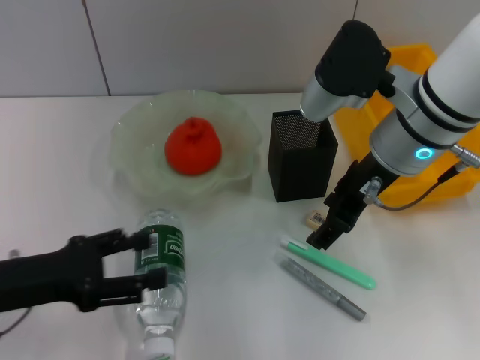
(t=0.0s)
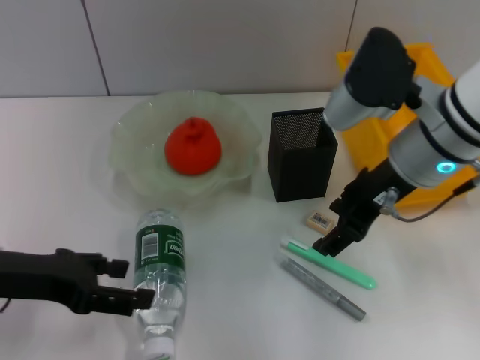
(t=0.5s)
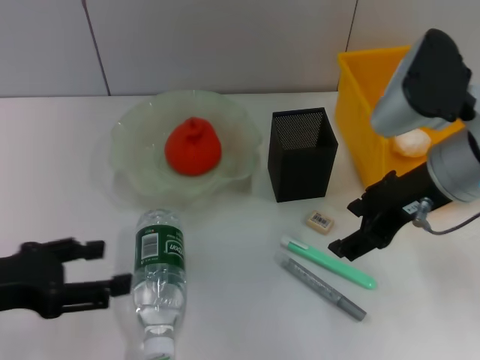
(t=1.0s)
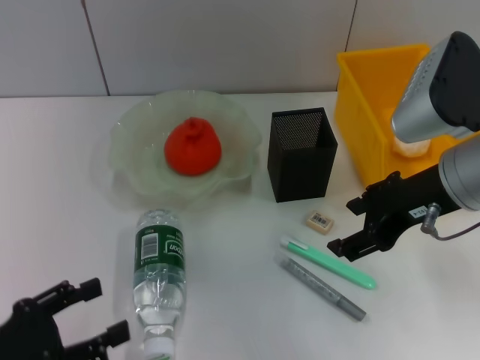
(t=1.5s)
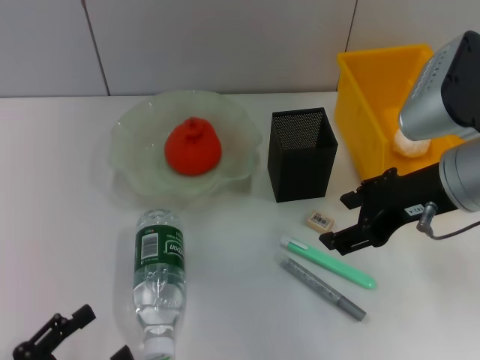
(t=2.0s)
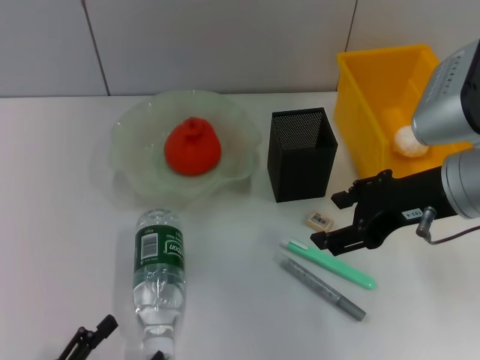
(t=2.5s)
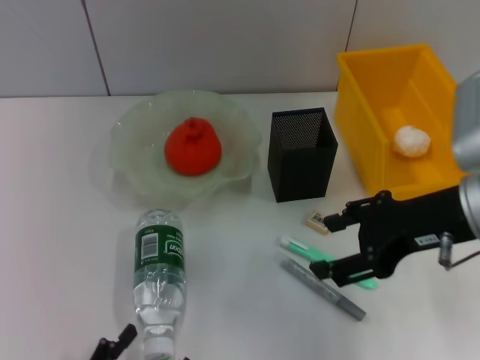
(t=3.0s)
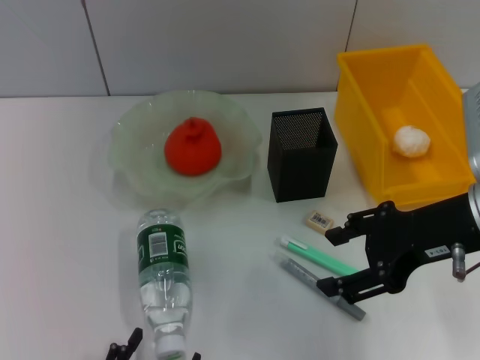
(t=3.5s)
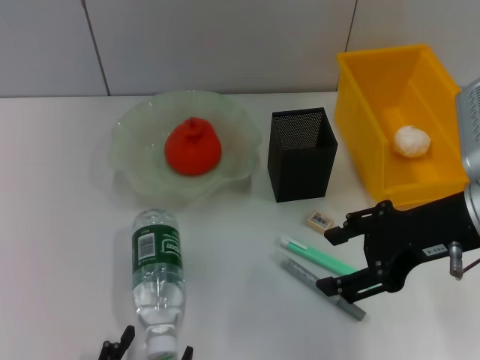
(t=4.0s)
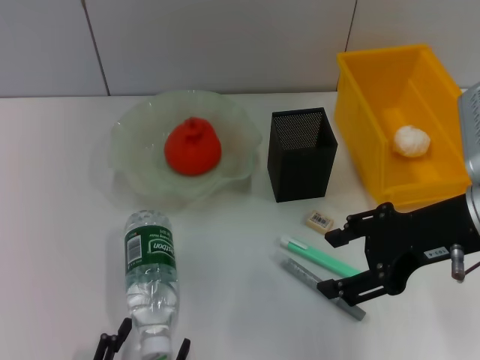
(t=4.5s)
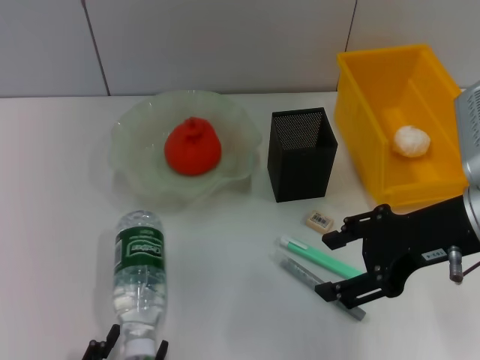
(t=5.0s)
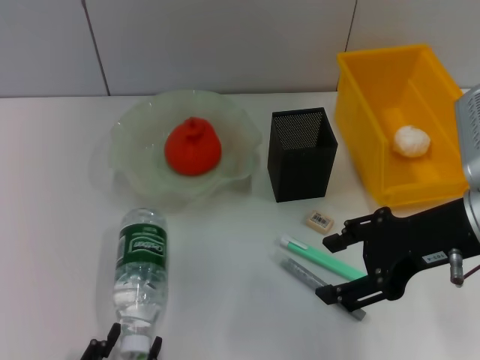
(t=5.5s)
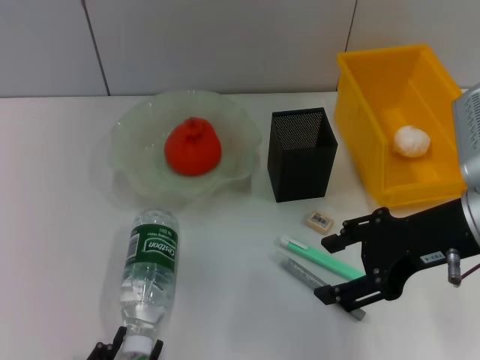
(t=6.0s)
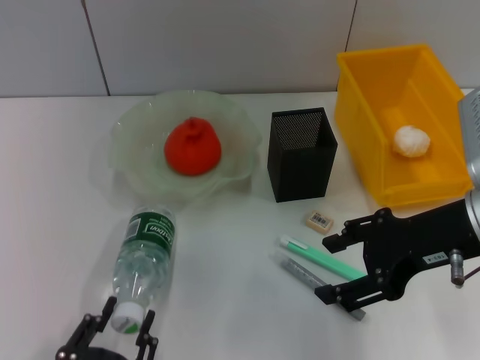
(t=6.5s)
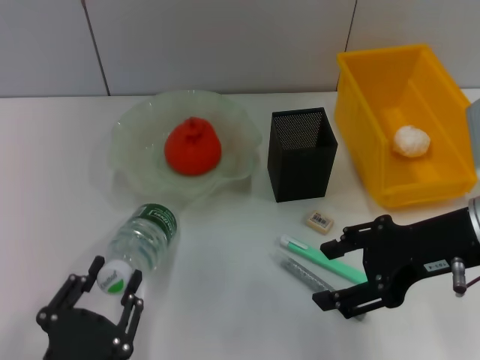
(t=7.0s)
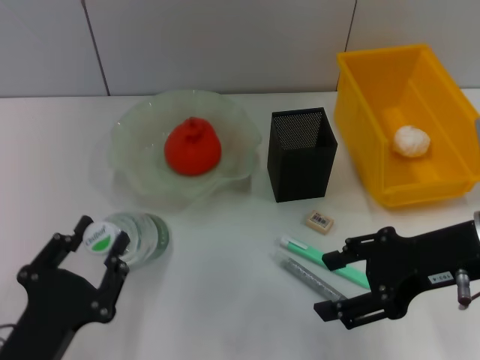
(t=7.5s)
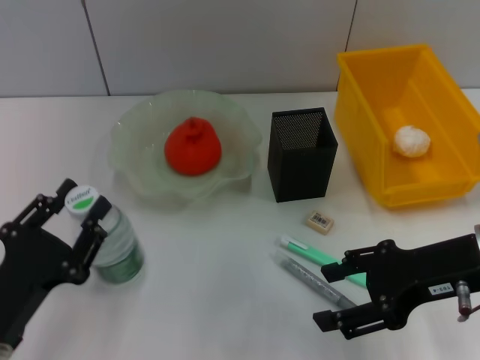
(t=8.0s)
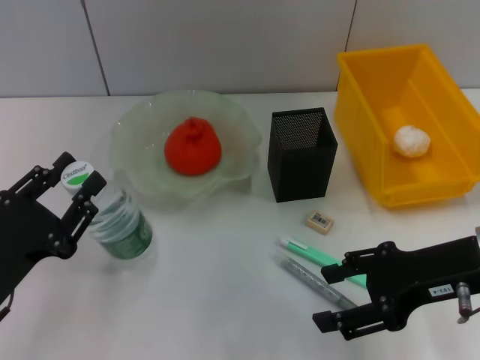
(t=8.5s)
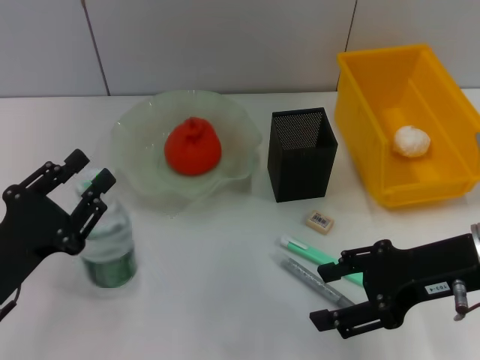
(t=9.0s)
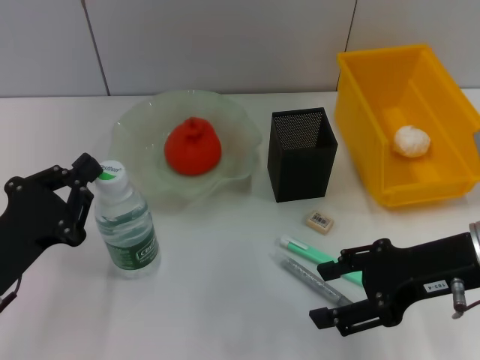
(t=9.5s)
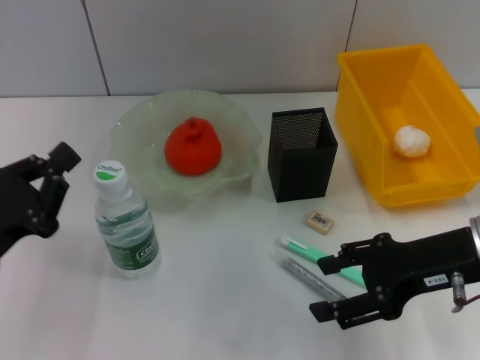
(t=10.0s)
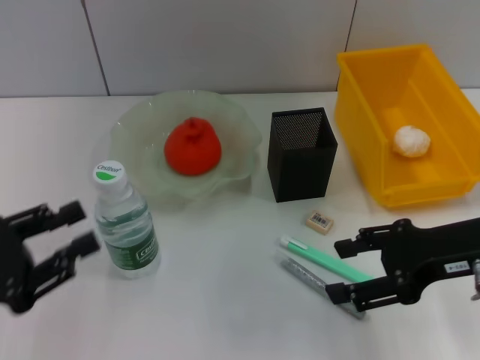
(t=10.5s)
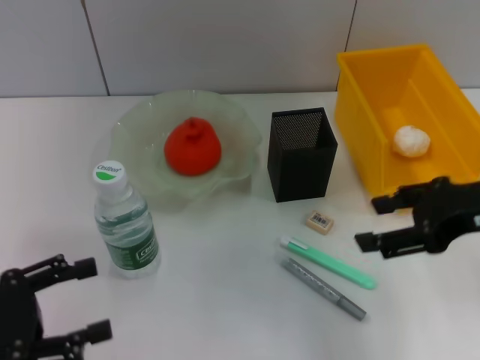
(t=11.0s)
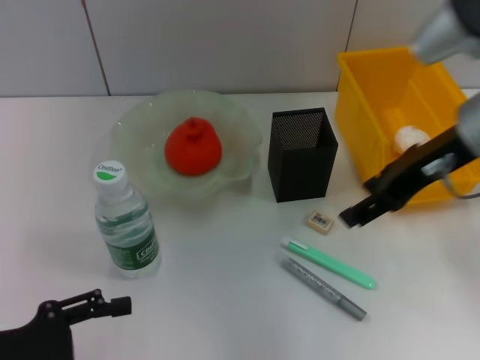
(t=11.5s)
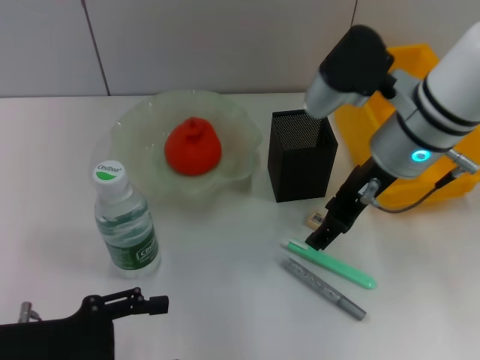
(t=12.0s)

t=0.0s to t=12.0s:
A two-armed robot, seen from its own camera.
Step, t=0.0s to t=6.0s: Grab the water bottle with the left hand.
Step, t=6.5s to t=9.5s: Place the water bottle on the table with the left hand.
t=0.0s to t=2.0s: The right gripper heads to the right and backward, covering about 10 cm. The left gripper travels backward and downward by some 15 cm.
t=2.0s to t=4.0s: The left gripper travels to the right by some 15 cm.
t=4.0s to t=6.0s: The left gripper closes its fingers.
t=6.0s to t=8.0s: The left gripper heads forward and to the left, covering about 15 cm.
t=8.0s to t=10.0s: The left gripper moves forward, roughly 5 cm, and closes.
t=10.0s to t=12.0s: The left gripper opens up; the right gripper shifts approximately 15 cm forward and to the left.

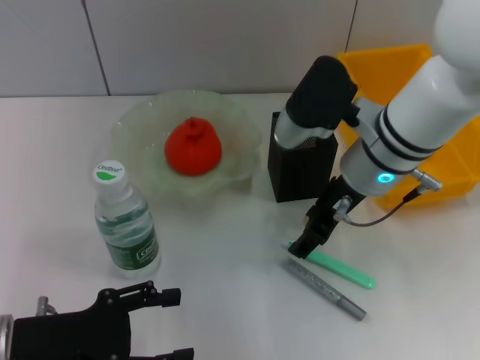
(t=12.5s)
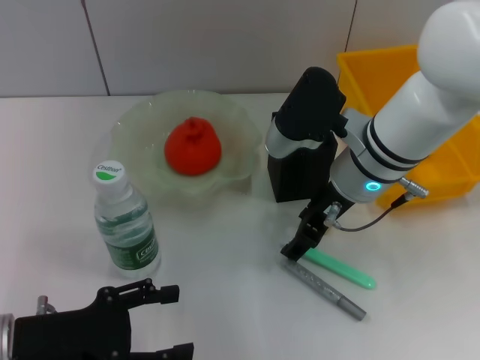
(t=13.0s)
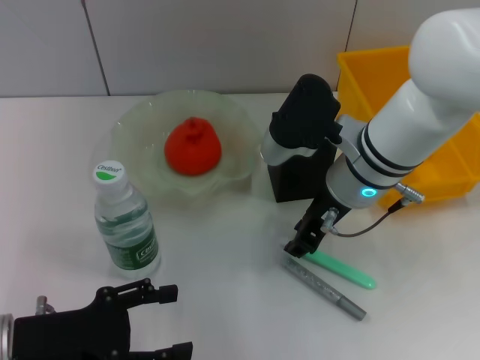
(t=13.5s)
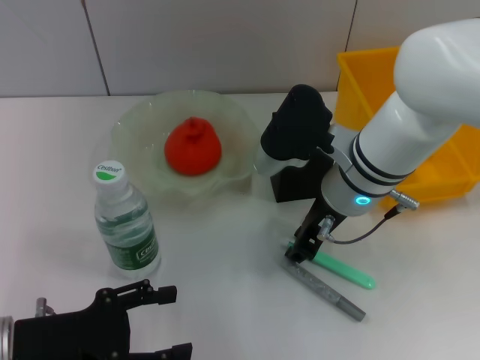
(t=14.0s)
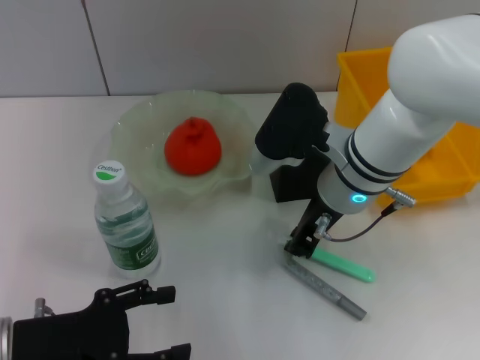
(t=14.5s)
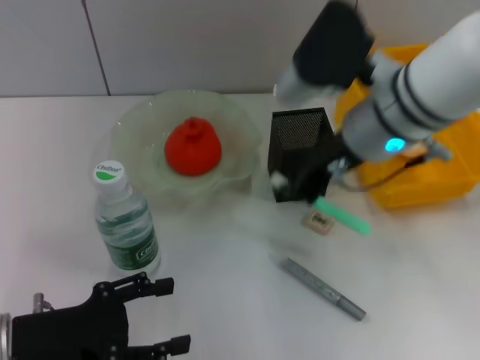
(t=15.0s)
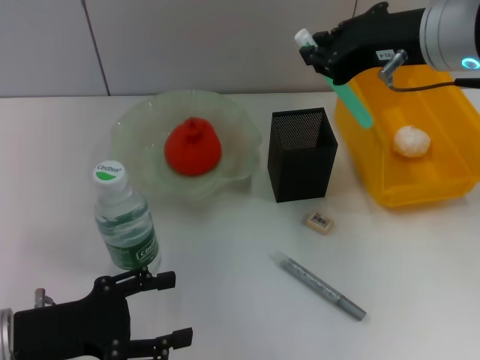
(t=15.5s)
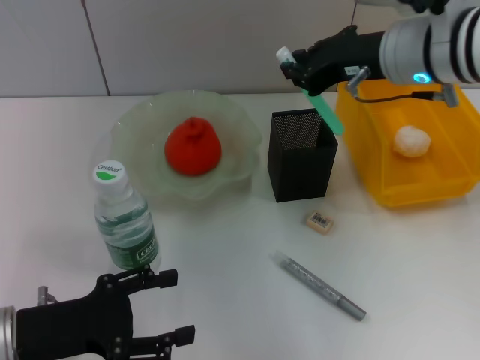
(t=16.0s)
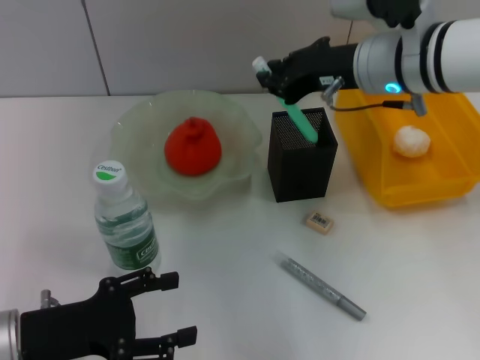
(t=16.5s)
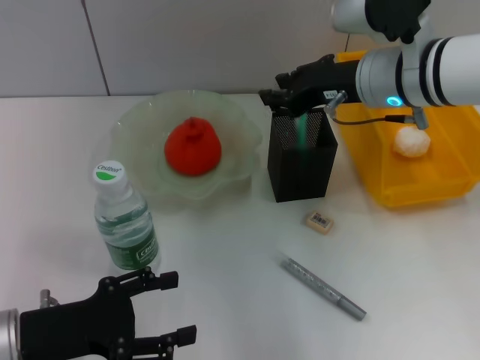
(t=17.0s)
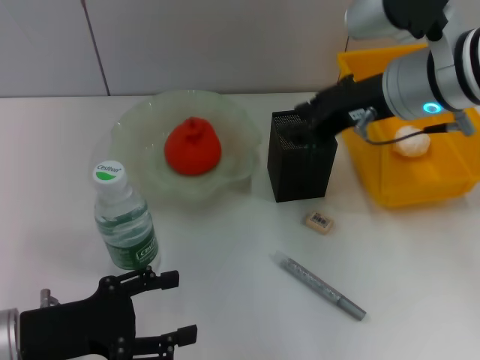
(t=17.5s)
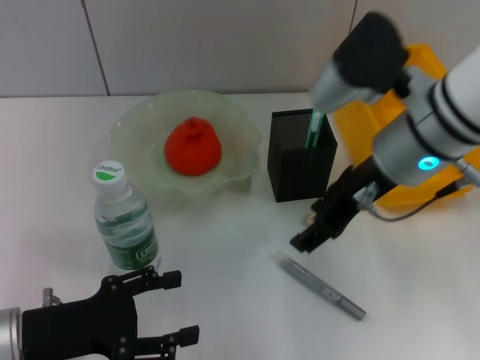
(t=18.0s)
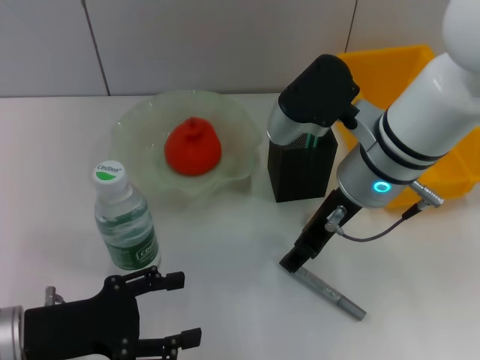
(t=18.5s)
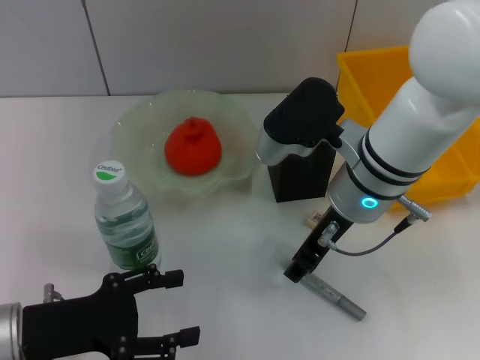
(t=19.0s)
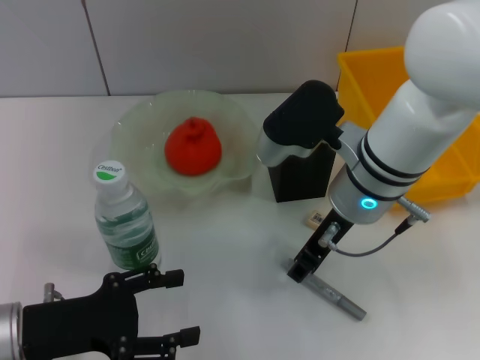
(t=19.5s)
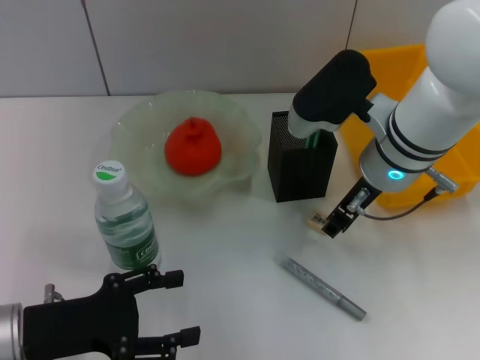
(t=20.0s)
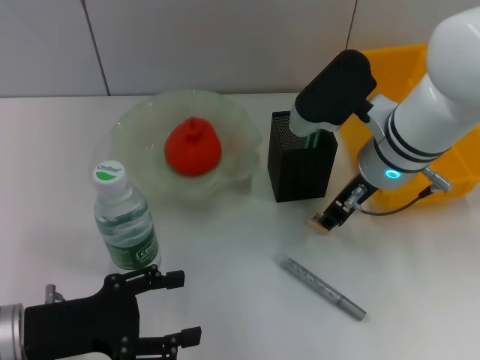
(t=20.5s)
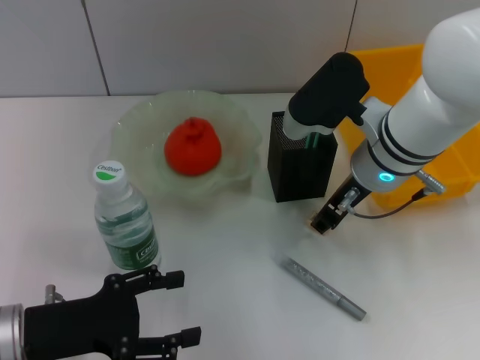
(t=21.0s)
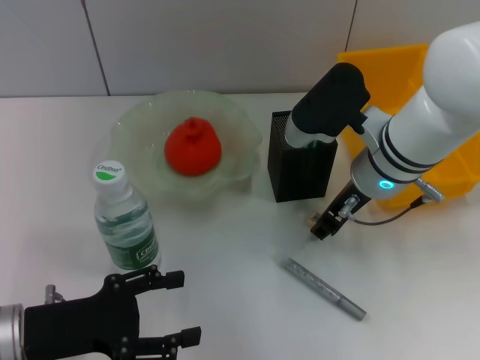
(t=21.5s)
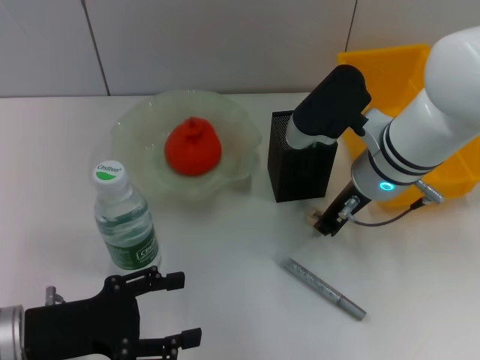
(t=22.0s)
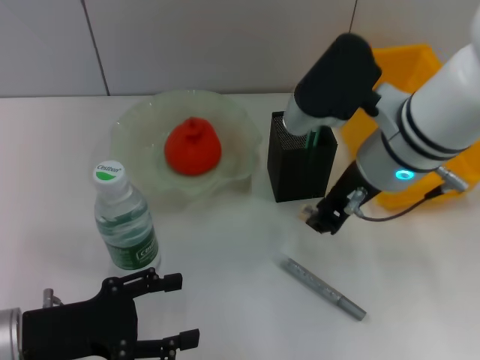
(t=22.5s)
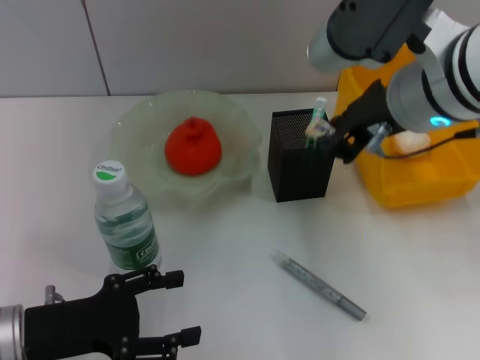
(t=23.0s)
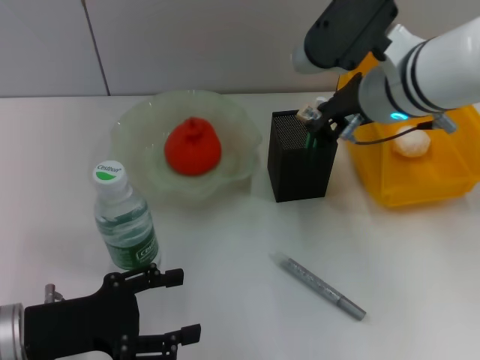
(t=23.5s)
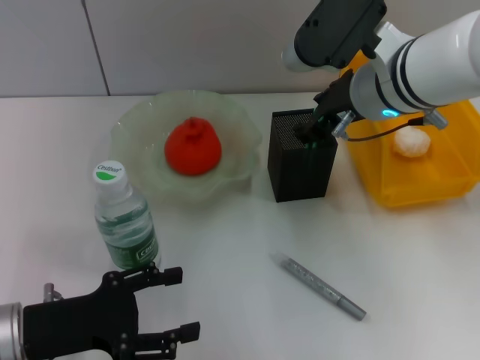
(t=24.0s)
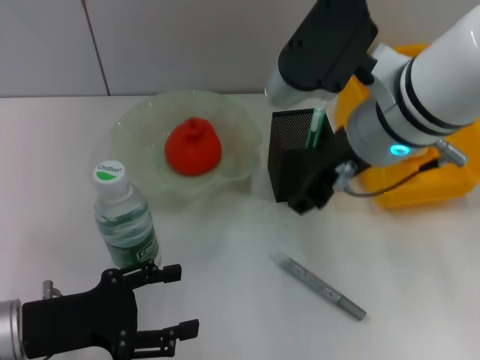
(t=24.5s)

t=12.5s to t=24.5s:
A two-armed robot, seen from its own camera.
Step, t=14.5s to t=17.0s: Place the blue utility knife into the pen holder with the right hand.
Step, t=17.5s to t=22.0s: Grab the eraser with the right hand.
Step, t=22.5s to t=24.0s: Put the eraser into the pen holder with the right hand.
t=12.5s to t=14.5s: The right gripper closes up.
t=14.5s to t=16.5s: The right gripper heads upward, covering about 5 cm.
t=16.5s to t=18.5s: The right gripper heads backward, covering roughly 5 cm, and opens up.
t=18.5s to t=20.5s: The right gripper closes.
t=20.5s to t=22.5s: The right gripper ends up roughly 5 cm from where it was, and closes up.
t=22.5s to t=24.5s: The right gripper opens.

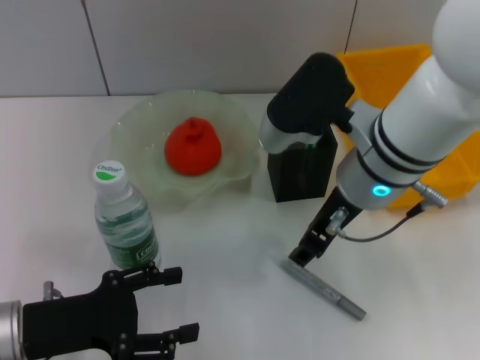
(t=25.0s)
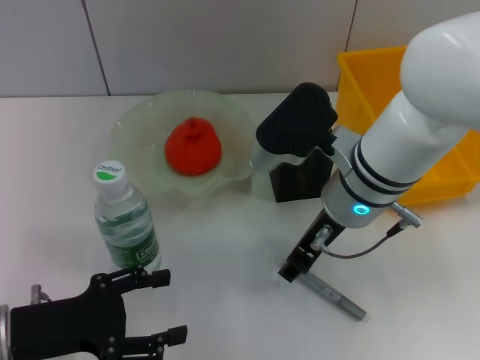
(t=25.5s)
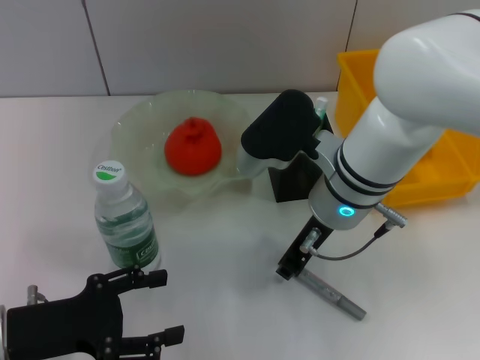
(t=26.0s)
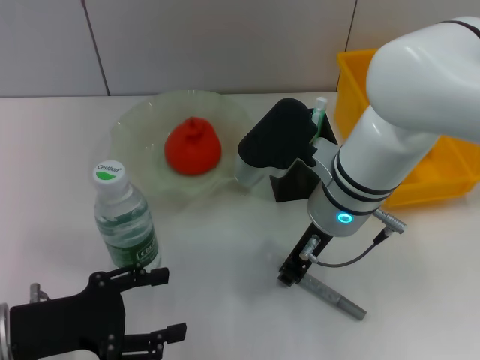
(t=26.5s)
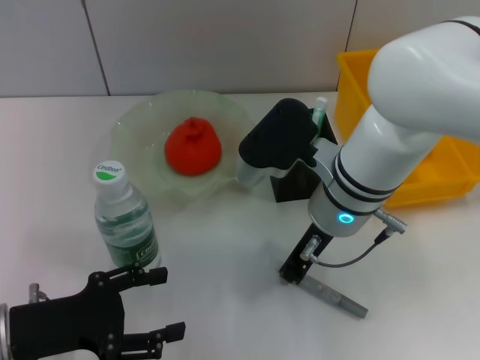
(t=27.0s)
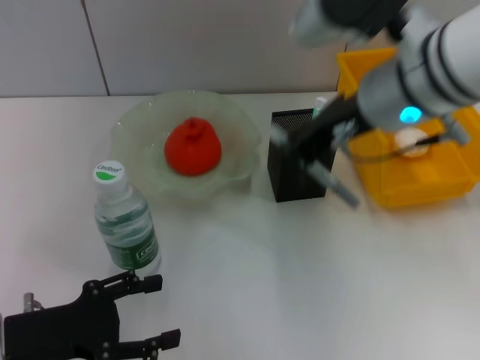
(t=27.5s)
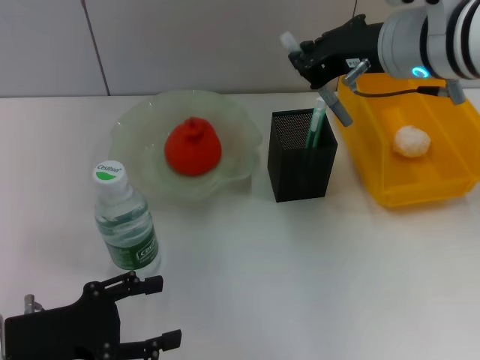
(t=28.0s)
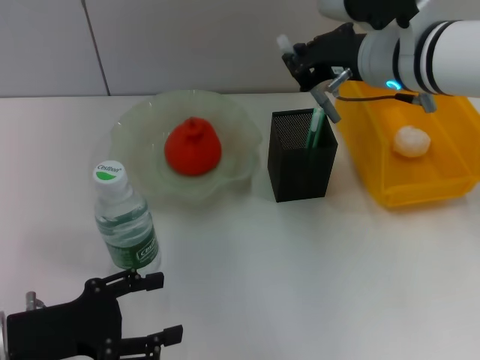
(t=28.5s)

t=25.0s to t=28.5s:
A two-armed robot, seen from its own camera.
Step, t=25.0s to t=26.5s: Grab the gray glue with the right hand.
t=25.0s to t=27.0s: The right gripper closes its fingers.
t=27.0s to t=28.5s: The right gripper moves upward, to the right and forward, roughly 10 cm.
